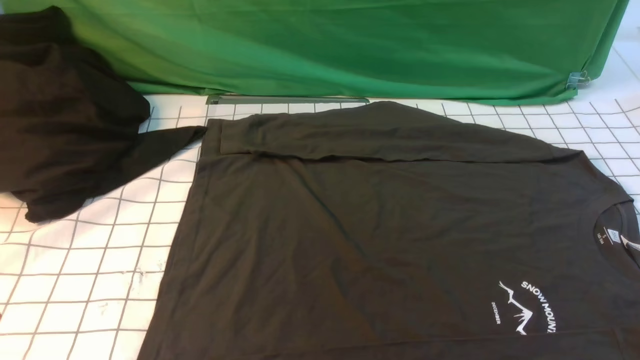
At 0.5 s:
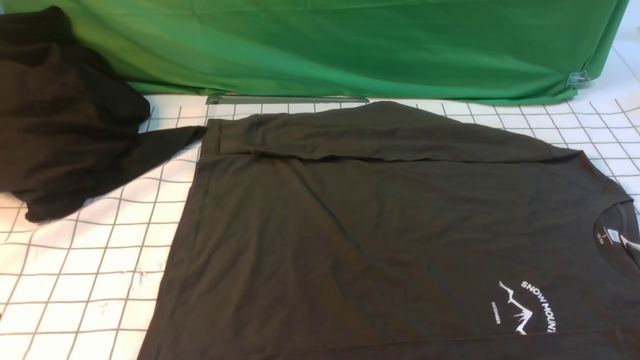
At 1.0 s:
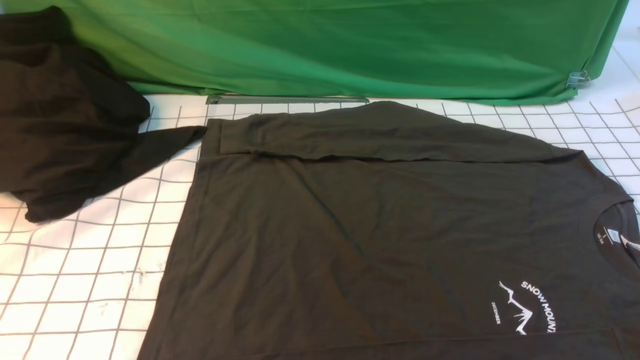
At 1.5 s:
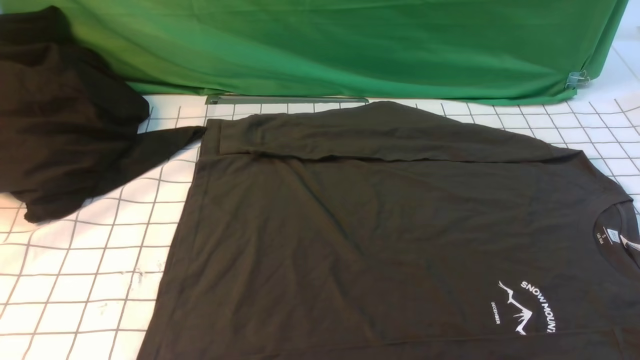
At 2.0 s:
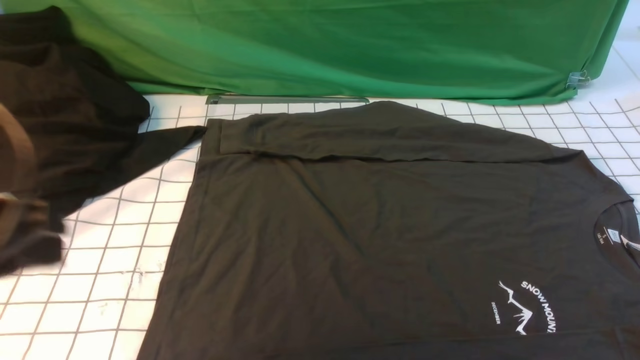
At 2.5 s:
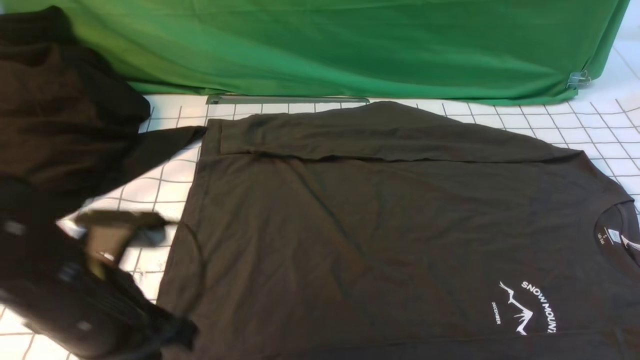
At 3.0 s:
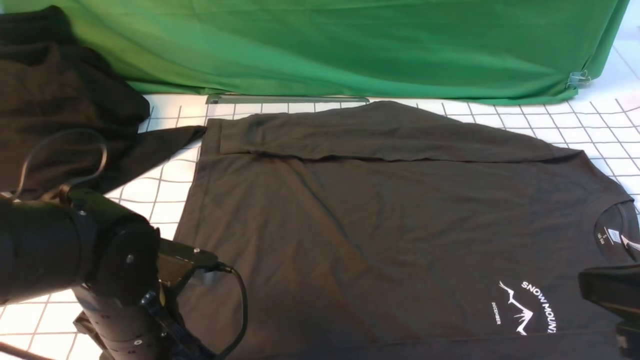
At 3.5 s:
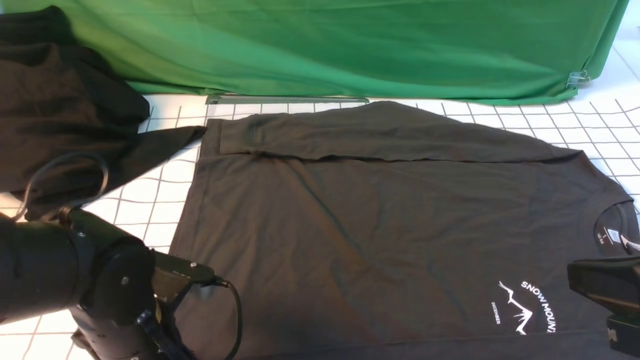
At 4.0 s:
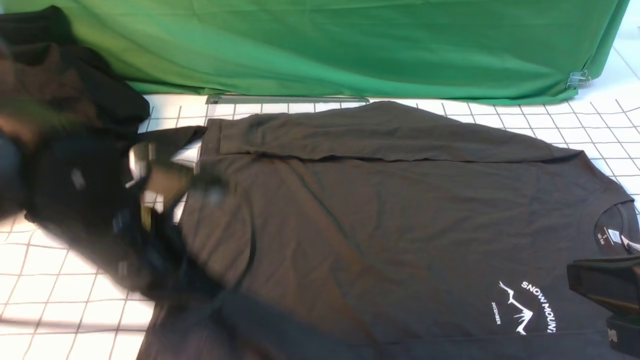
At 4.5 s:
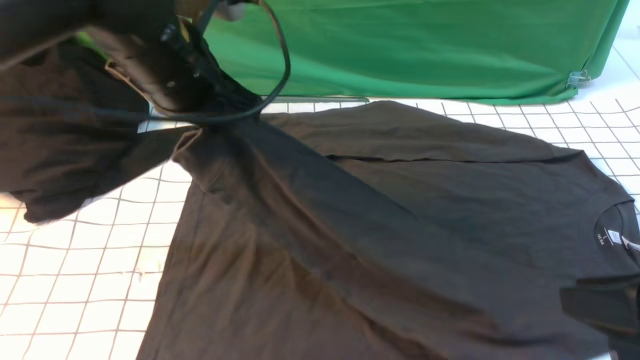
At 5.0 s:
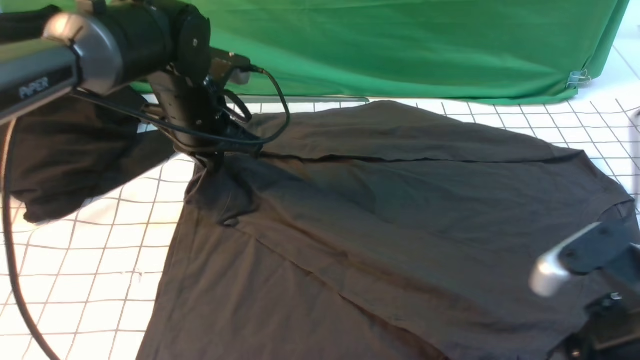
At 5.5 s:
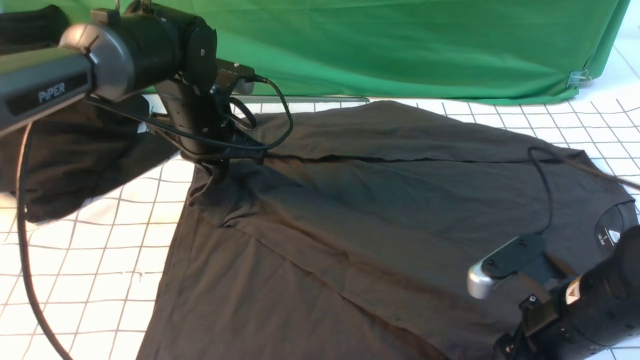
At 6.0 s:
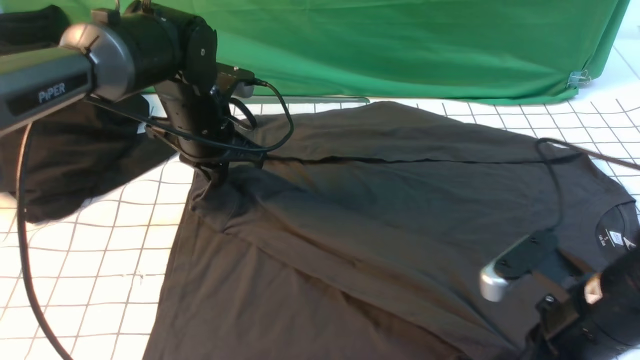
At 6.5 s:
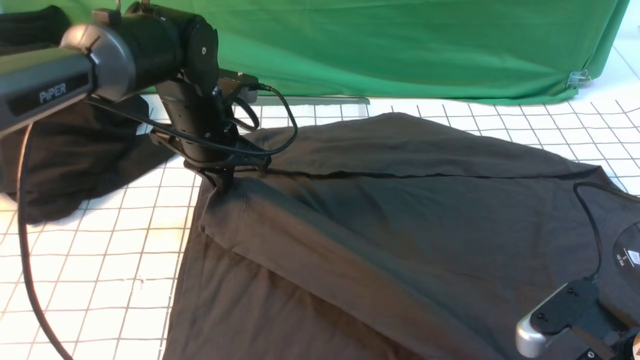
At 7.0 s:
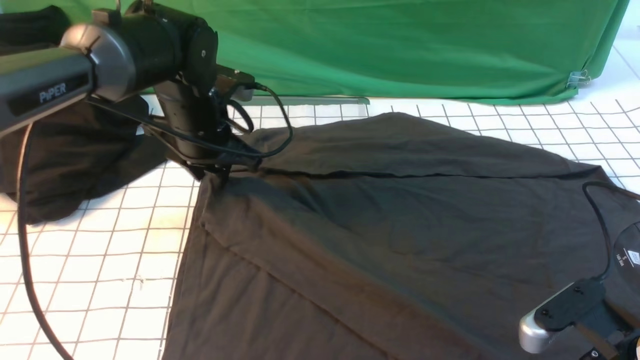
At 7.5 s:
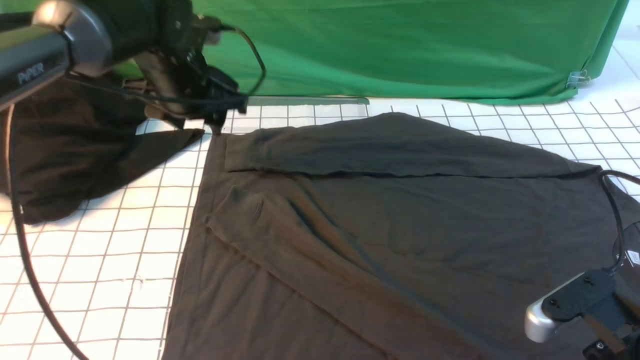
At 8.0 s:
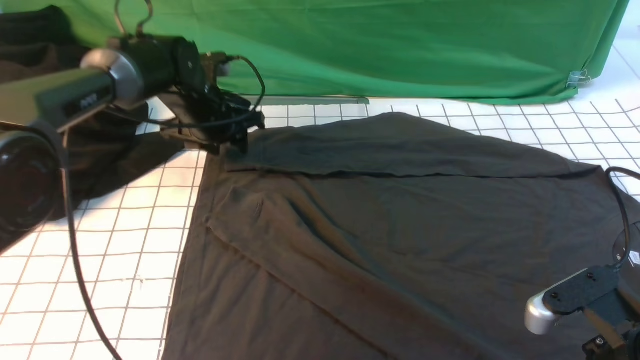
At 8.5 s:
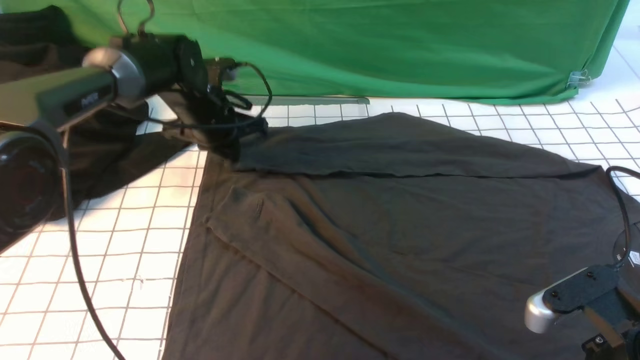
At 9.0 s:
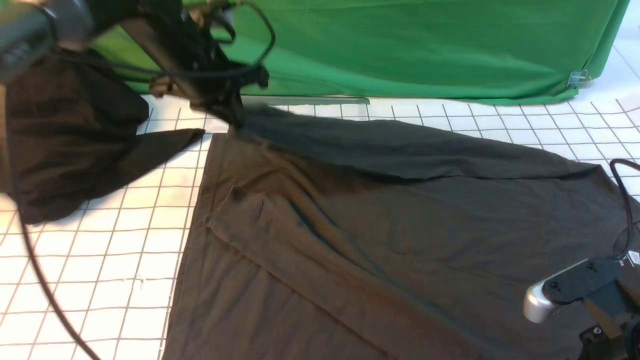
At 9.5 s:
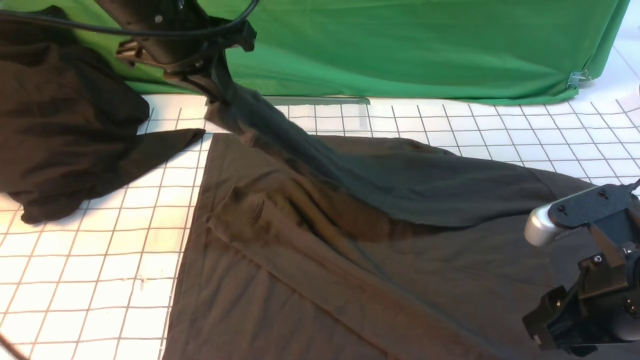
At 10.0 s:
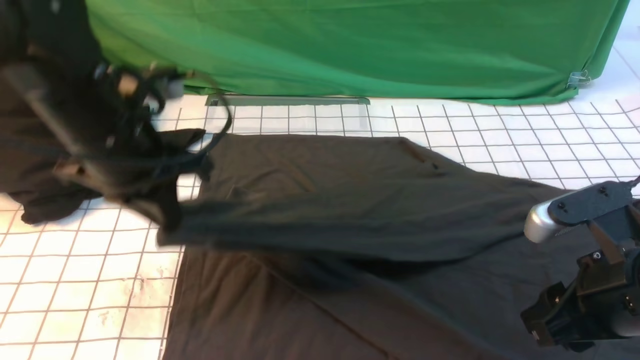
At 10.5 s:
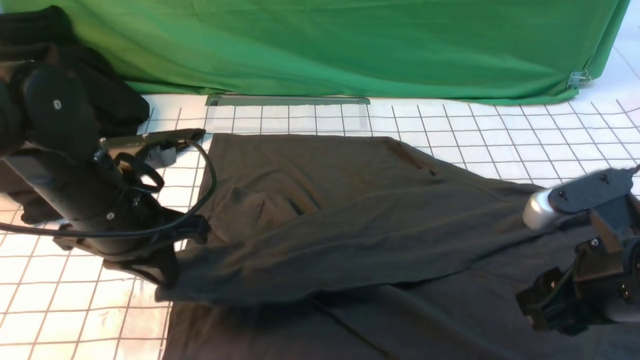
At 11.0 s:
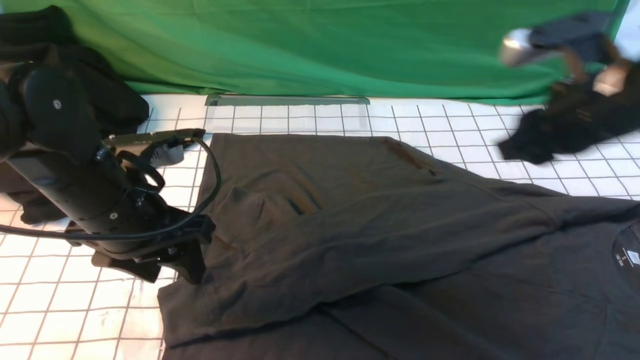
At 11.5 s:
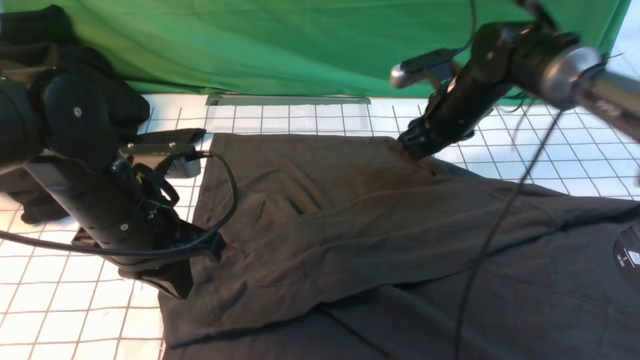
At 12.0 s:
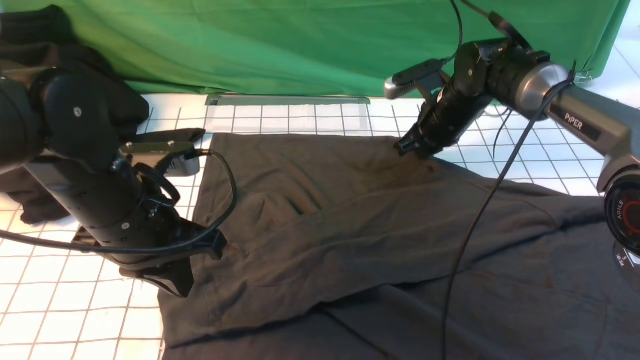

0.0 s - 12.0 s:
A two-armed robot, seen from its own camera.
Step, 0.0 s - 3.5 s: use the left arm to clamp the cuff closest to it.
Step, 4.0 s - 7.0 s: use the left arm to drag and place the cuff at the centered position on the left edge of the fabric.
Step, 7.5 s - 8.0 s: use the left arm to clamp the cuff farthest from it.
Step, 8.5 s - 10.5 s: use the left arm to drag and drop the cuff onto the cuff closest to the left arm.
0.0 s - 2.0 s: The left gripper heads upward and forward, covering approximately 15 cm.
2.0 s - 4.0 s: The left gripper travels to the right and forward by about 15 cm, moves approximately 15 cm downward and comes back, and opens, then closes again. Meanwhile the right gripper moves upward, forward and to the left, about 15 cm, and closes its fingers.
4.0 s - 6.0 s: The left gripper is displaced forward by approximately 20 cm; the right gripper goes about 15 cm downward and forward, and opens and closes again.
6.0 s - 8.0 s: The left gripper is displaced forward by some 10 cm, and opens. Meanwhile the right gripper opens its fingers.
8.0 s - 10.0 s: The left gripper heads backward and upward, covering some 20 cm, and closes its fingers. The right gripper changes place by about 5 cm.
10.0 s - 12.0 s: The right gripper heads forward, covering roughly 30 cm, and closes; the left gripper moves some 5 cm, and opens and closes again.

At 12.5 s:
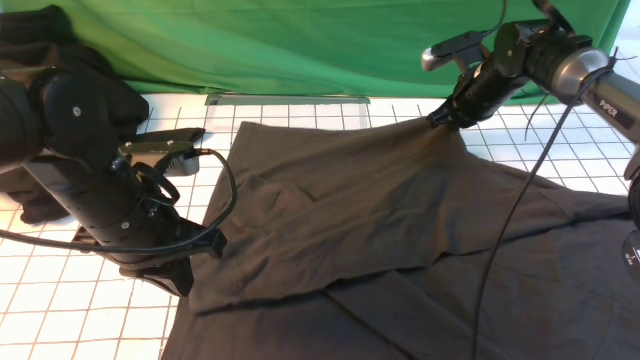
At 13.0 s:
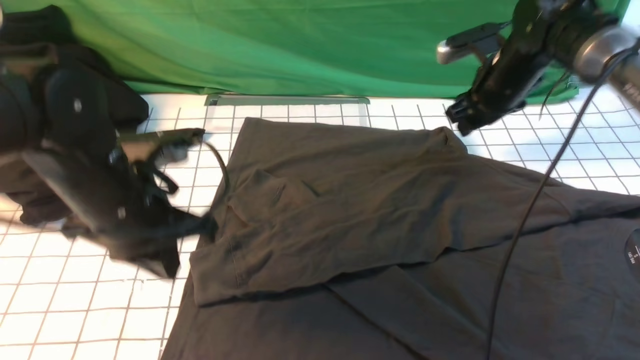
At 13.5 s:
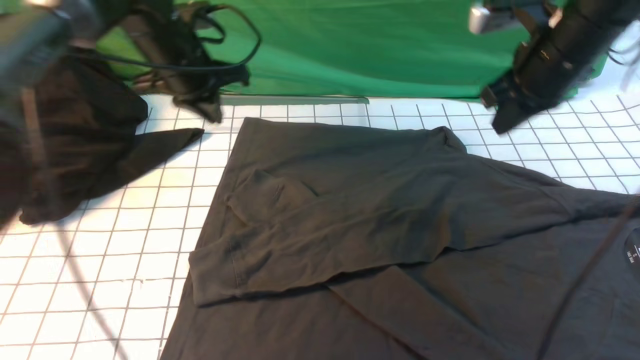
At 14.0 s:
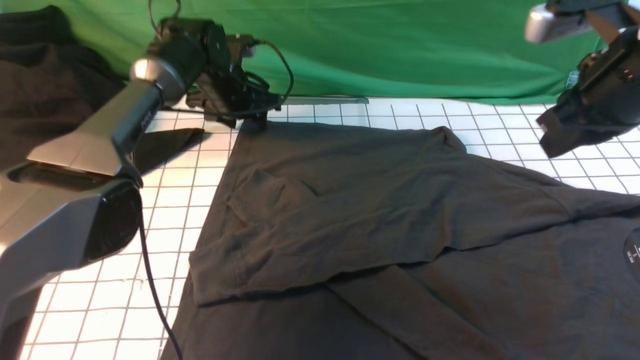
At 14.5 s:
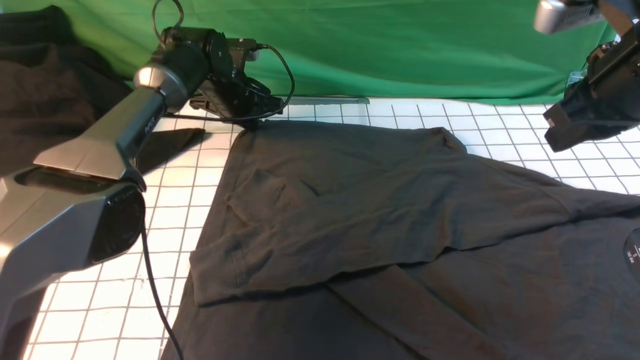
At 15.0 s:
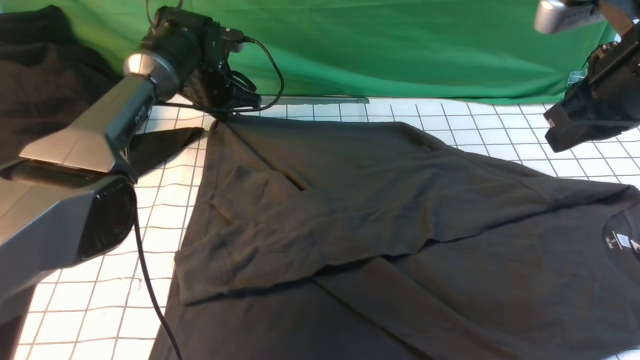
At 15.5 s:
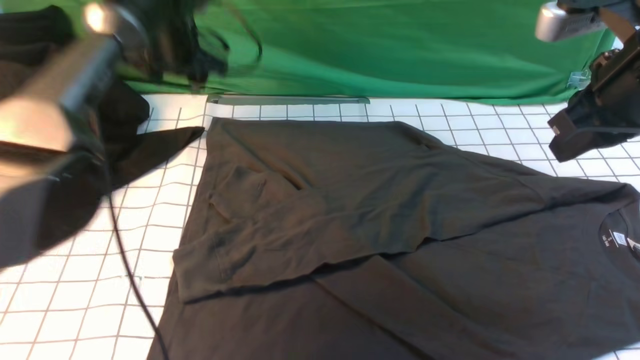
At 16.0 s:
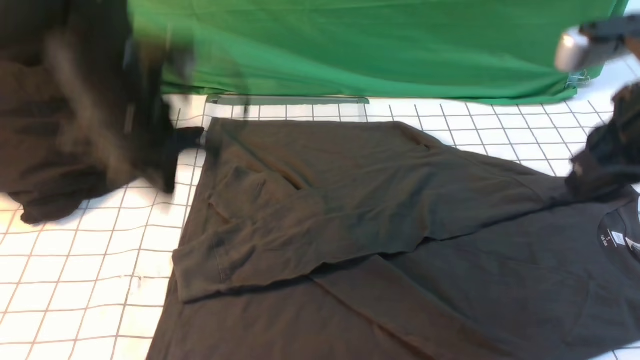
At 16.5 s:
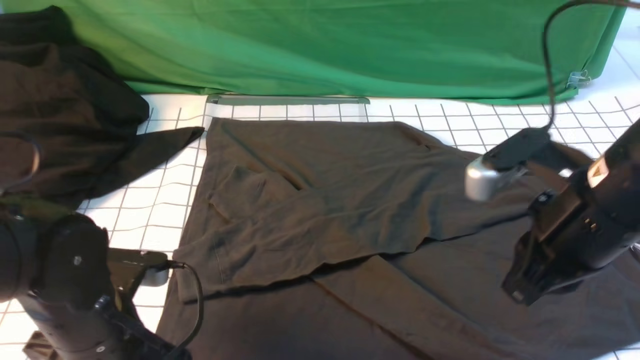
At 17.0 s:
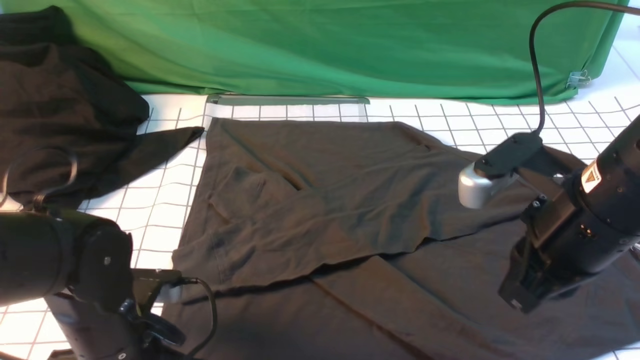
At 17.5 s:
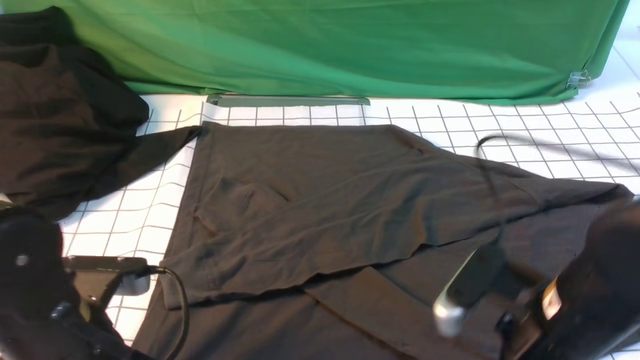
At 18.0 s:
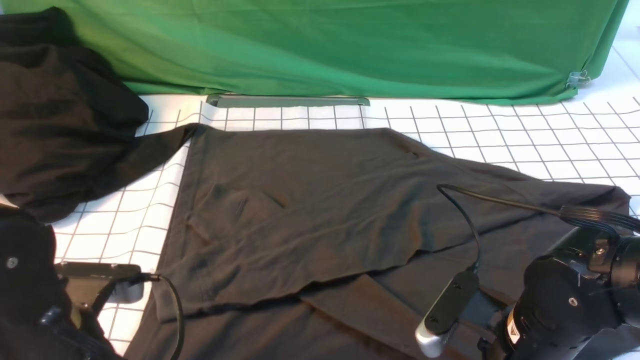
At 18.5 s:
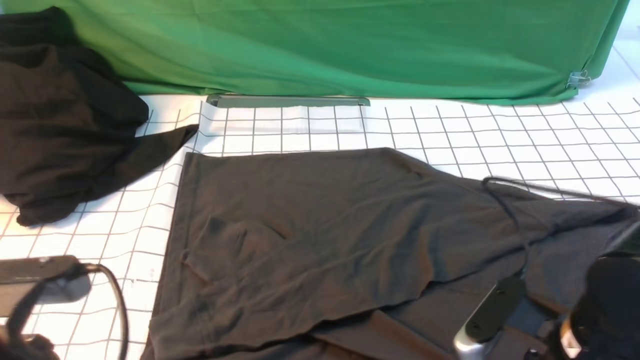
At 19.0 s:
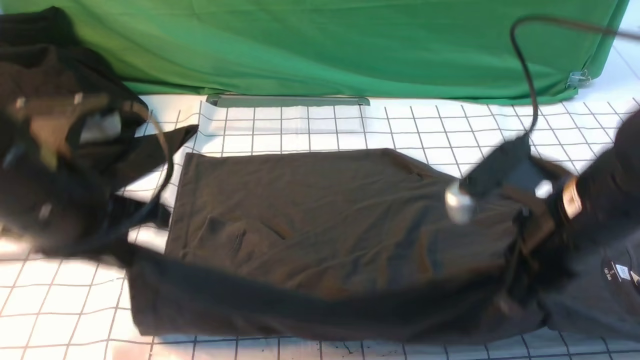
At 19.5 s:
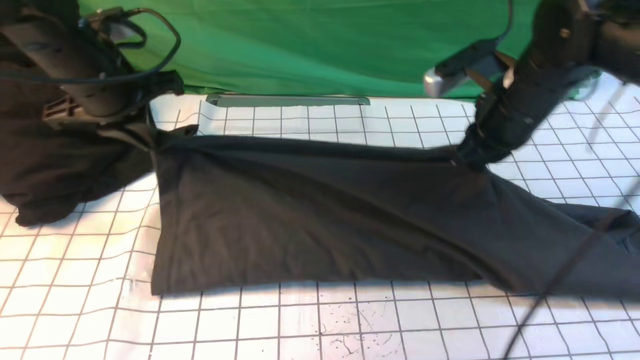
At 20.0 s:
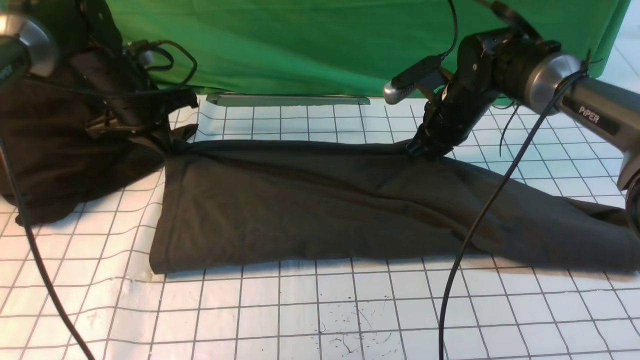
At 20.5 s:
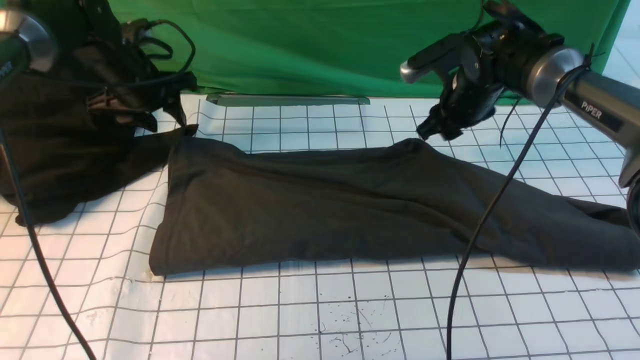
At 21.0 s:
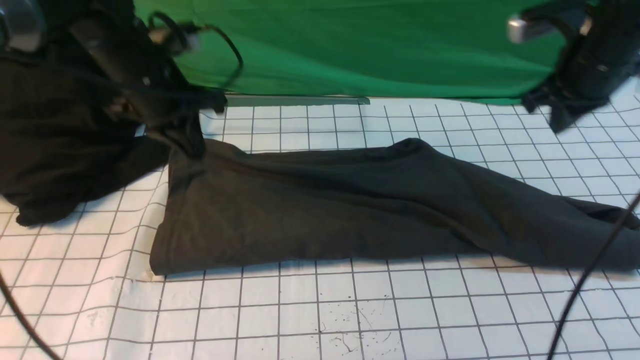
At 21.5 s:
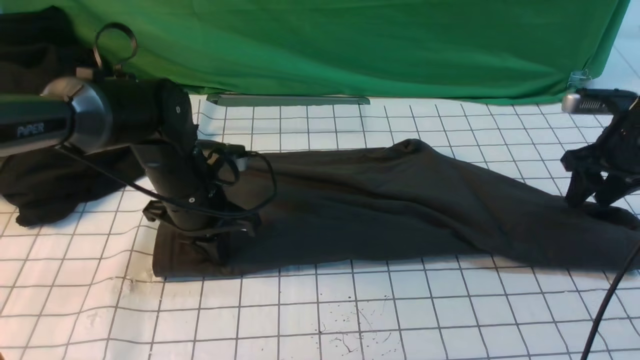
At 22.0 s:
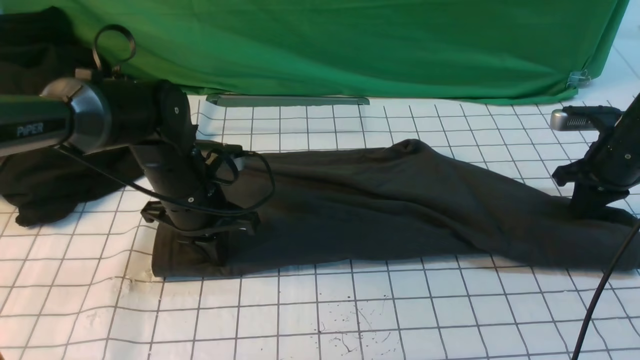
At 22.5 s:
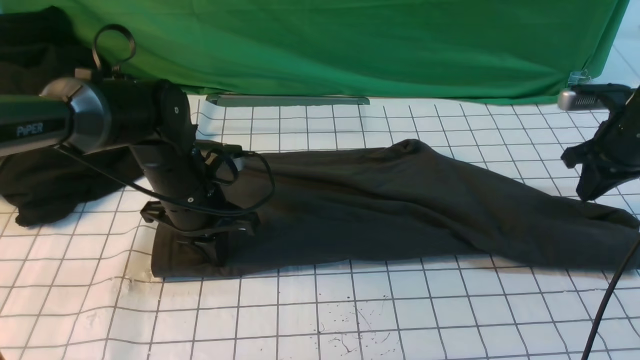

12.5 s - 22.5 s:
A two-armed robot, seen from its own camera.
Step, 12.5 s - 17.5 s: use both arms simultaneously to clamp the lower edge of the clothing fabric.
Step, 18.0 s - 20.0 s: use both arms to drag the lower edge of the fabric forward and fold it over the upper edge.
12.5 s - 14.5 s: The left gripper shifts roughly 30 cm forward, and opens, then closes again. The right gripper travels backward and upward by some 25 cm, and opens, then closes again.
14.5 s - 16.5 s: The right gripper goes approximately 10 cm backward and downward, while the left gripper goes approximately 35 cm backward, and opens its fingers.
16.5 s - 18.5 s: The left gripper goes approximately 10 cm upward and backward, and closes up, while the right gripper shifts some 10 cm downward and backward, and opens, then closes again.
18.5 s - 20.5 s: Both grippers move forward, about 35 cm. The left gripper opens its fingers; the right gripper opens its fingers.
20.5 s - 22.5 s: The right gripper heads to the right, covering some 15 cm, while the left gripper heads backward, to the right and downward, covering approximately 20 cm, and closes its fingers.
